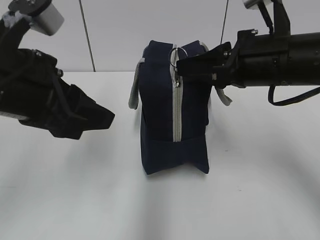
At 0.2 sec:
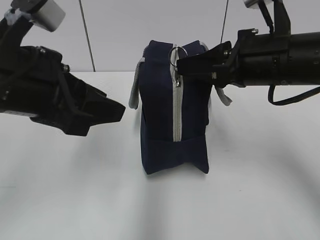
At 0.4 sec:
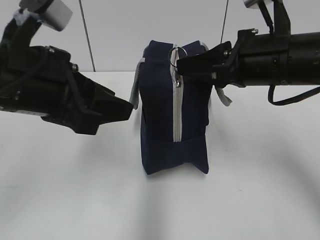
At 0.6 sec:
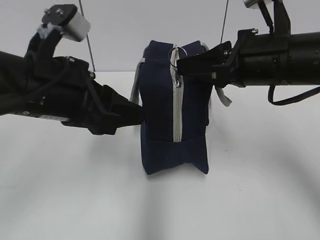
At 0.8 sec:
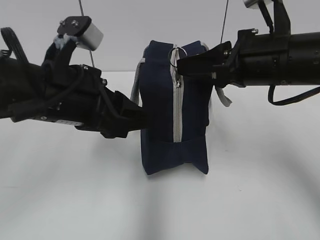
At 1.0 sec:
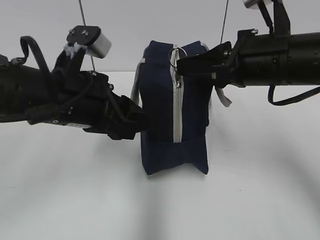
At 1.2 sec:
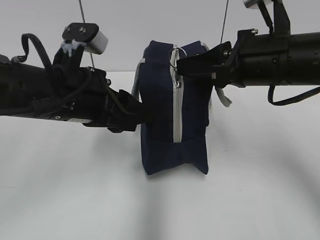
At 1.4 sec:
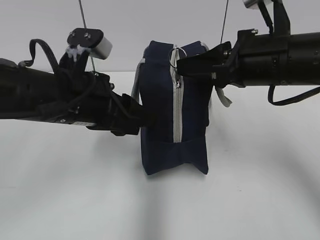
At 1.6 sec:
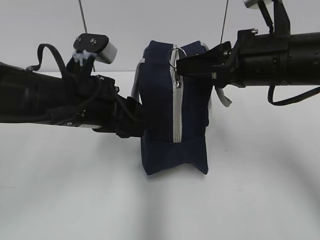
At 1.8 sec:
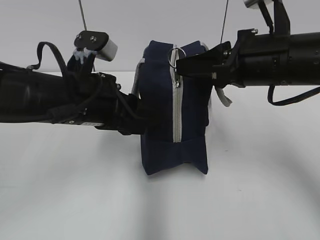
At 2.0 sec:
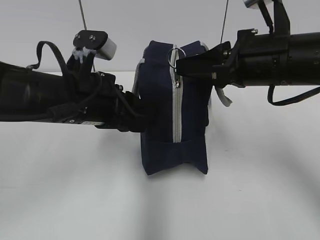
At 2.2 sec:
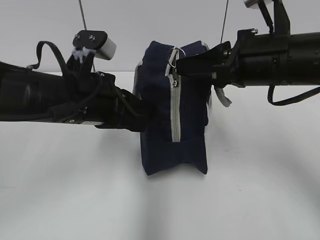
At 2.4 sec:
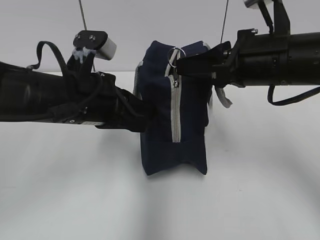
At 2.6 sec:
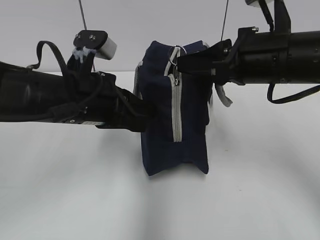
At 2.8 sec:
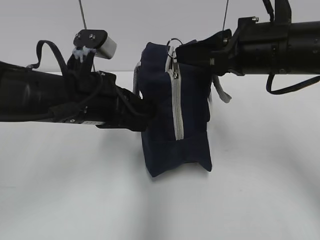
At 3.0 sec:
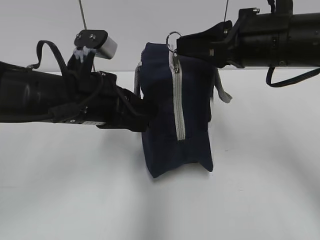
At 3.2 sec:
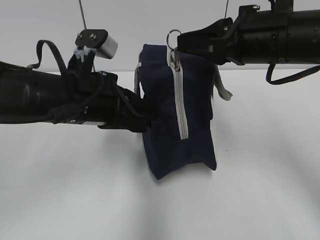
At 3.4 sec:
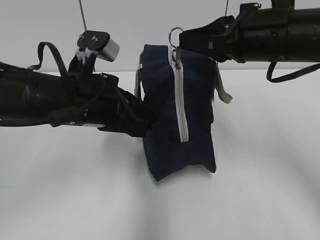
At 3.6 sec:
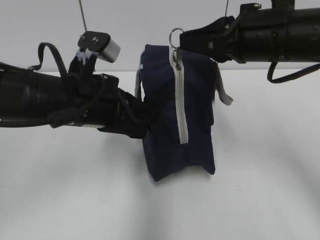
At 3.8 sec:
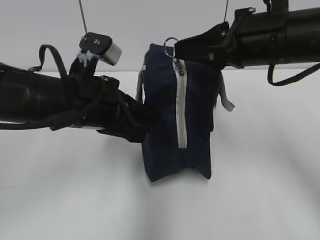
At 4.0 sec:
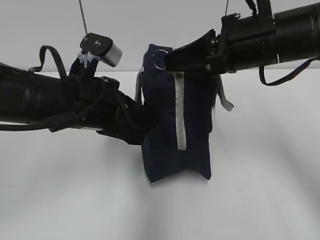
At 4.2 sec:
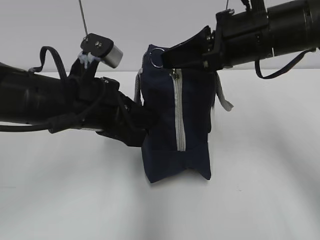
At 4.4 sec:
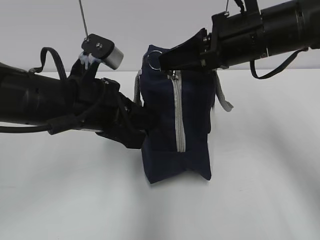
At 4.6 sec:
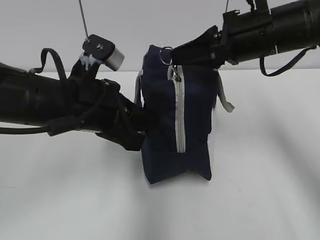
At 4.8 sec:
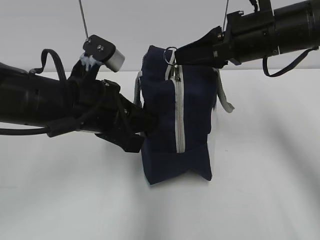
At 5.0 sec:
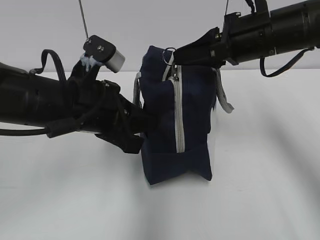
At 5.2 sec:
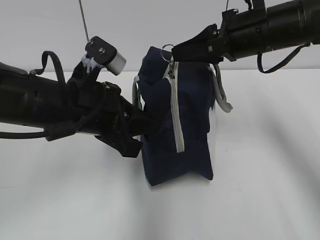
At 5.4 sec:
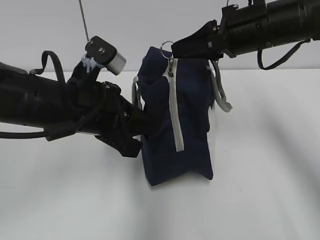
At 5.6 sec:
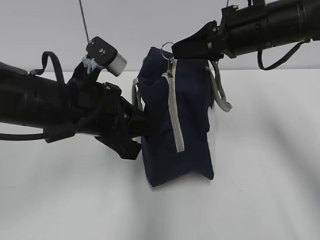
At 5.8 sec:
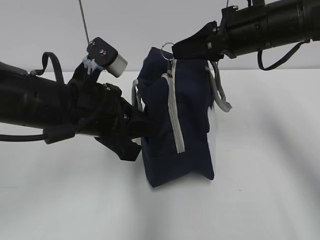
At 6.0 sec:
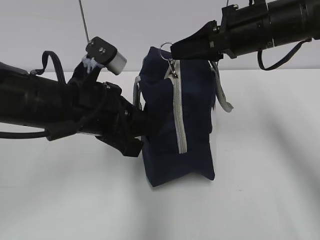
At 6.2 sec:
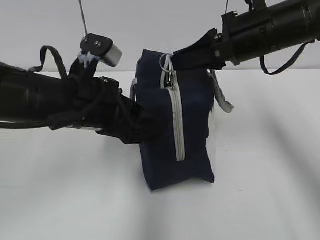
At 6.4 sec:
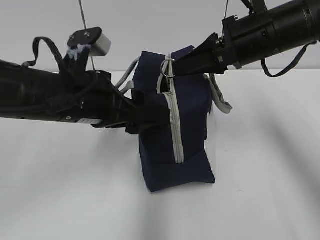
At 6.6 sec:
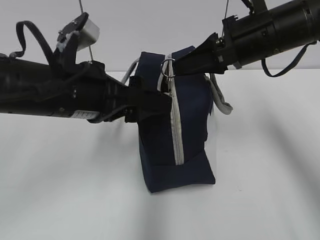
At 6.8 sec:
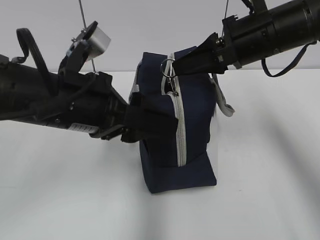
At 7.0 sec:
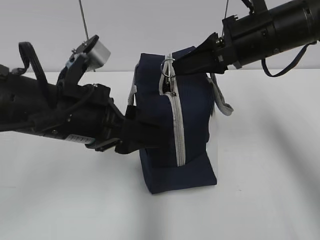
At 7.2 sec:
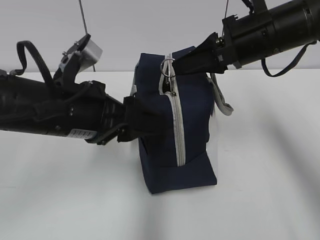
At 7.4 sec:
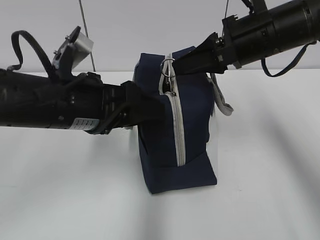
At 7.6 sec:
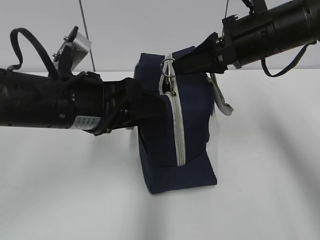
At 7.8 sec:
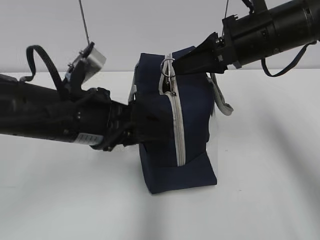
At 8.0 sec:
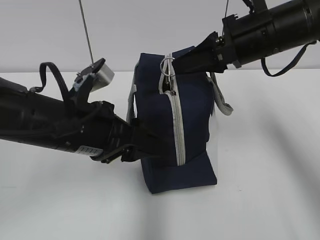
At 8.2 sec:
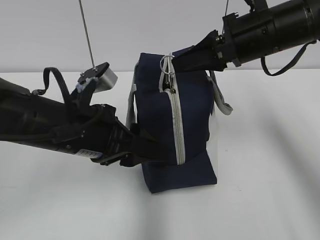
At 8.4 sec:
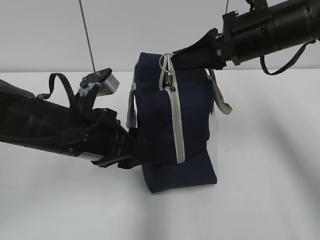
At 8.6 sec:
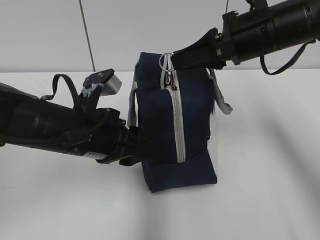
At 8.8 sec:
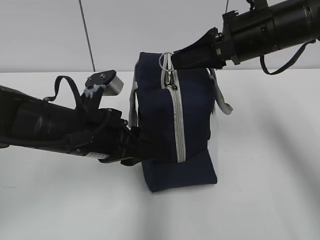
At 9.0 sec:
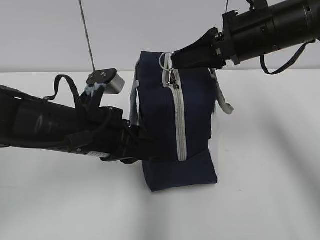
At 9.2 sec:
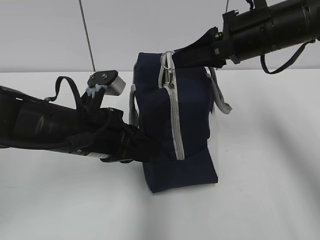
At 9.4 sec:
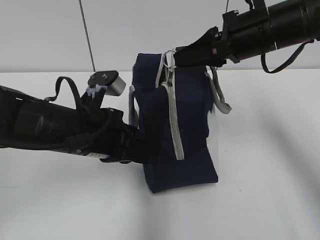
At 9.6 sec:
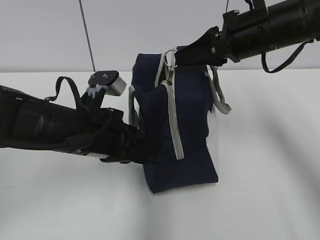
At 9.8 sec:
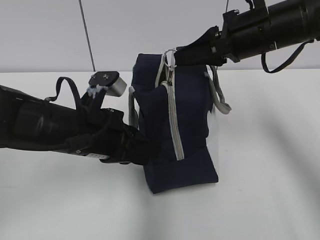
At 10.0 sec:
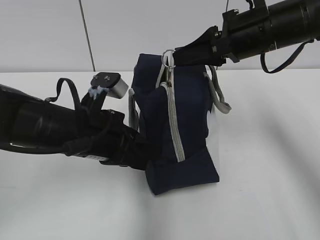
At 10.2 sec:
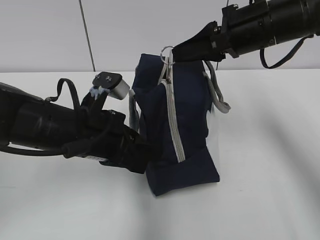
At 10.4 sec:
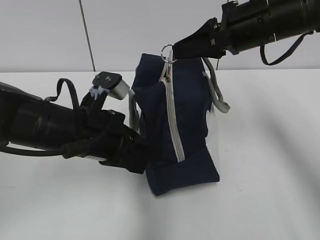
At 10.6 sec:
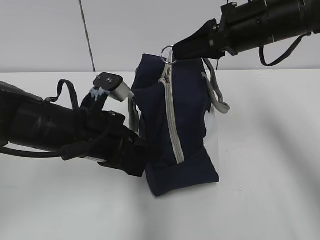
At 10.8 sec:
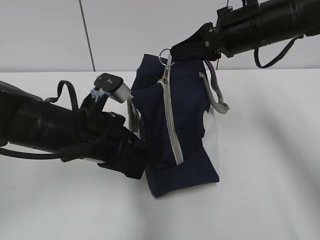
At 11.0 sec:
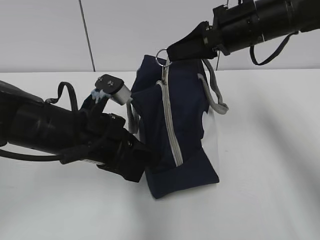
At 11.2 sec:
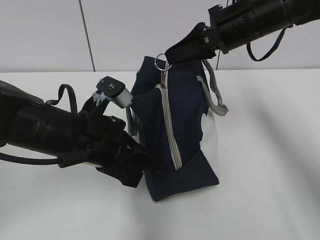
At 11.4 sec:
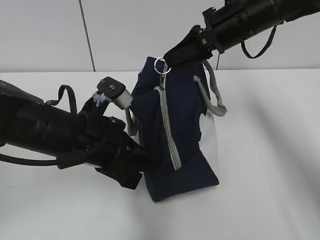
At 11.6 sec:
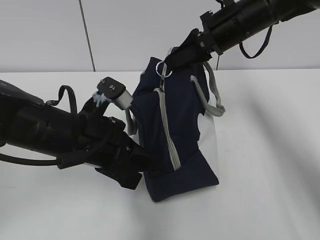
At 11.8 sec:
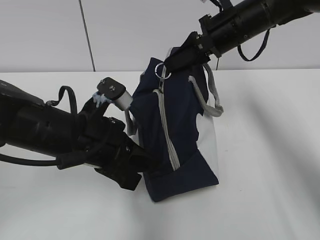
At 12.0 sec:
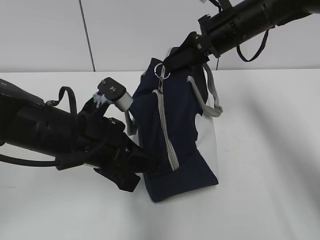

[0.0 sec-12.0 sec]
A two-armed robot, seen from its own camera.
0.0 sec to 1.6 sec: The left gripper shifts approximately 5 cm downward.
1.6 sec to 3.0 sec: The left gripper closes up.
3.0 sec to 4.4 sec: There are only small adjustments of the grippers.
4.4 sec to 6.0 sec: The grippers make only small movements.
6.0 sec to 7.6 sec: The left gripper opens up.
7.6 sec to 9.0 sec: The left gripper moves downward, about 5 cm, and closes up.
9.0 sec to 10.4 sec: The left gripper closes.
10.4 sec to 12.0 sec: The right gripper goes some 5 cm forward.

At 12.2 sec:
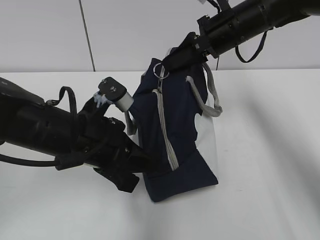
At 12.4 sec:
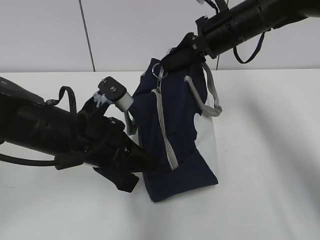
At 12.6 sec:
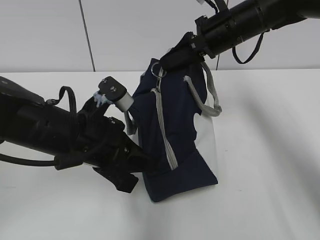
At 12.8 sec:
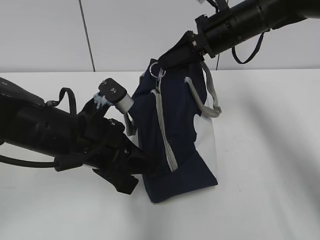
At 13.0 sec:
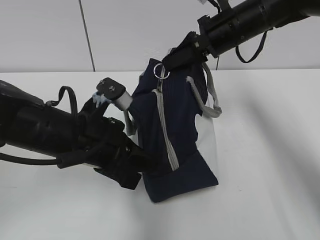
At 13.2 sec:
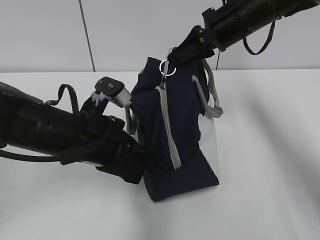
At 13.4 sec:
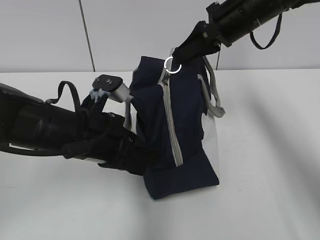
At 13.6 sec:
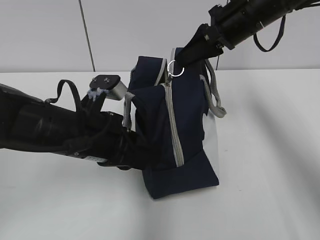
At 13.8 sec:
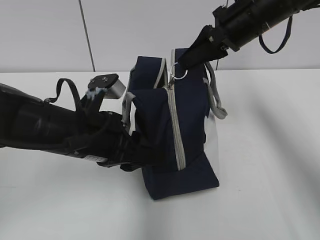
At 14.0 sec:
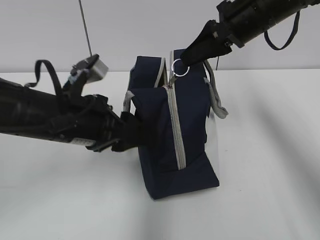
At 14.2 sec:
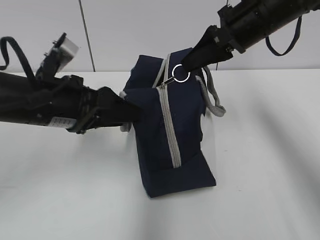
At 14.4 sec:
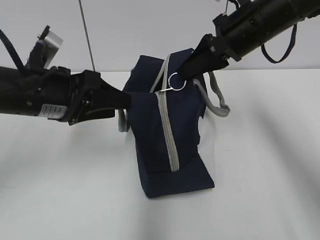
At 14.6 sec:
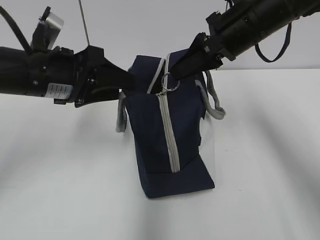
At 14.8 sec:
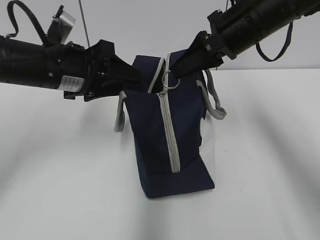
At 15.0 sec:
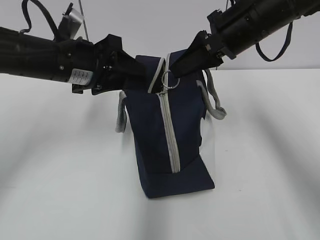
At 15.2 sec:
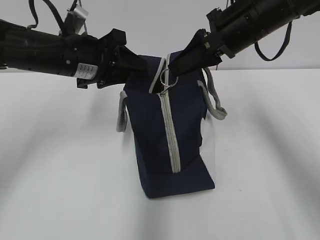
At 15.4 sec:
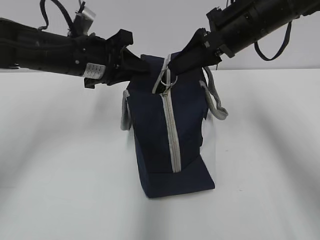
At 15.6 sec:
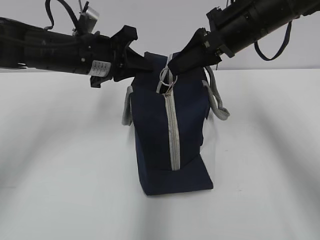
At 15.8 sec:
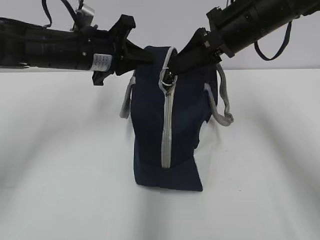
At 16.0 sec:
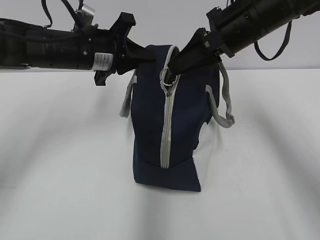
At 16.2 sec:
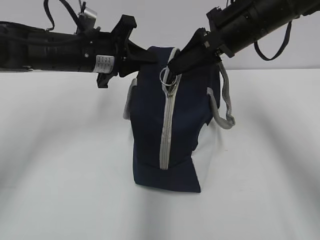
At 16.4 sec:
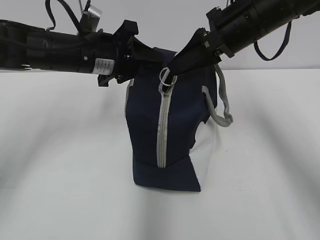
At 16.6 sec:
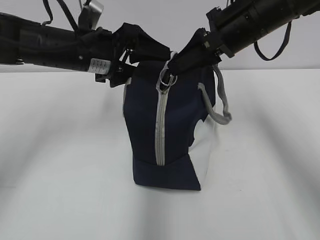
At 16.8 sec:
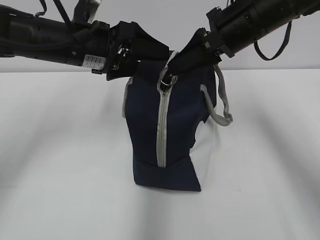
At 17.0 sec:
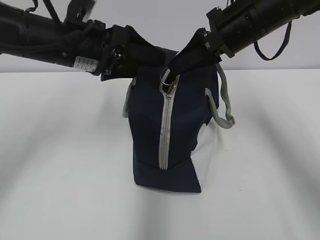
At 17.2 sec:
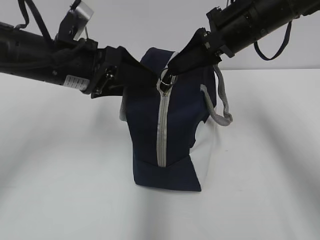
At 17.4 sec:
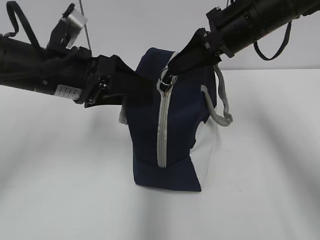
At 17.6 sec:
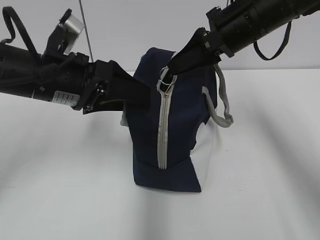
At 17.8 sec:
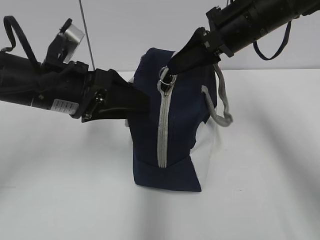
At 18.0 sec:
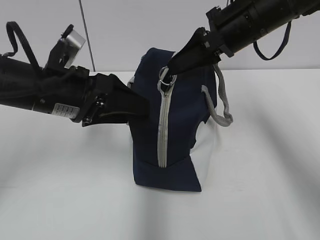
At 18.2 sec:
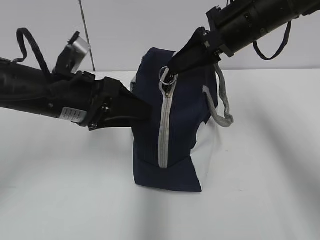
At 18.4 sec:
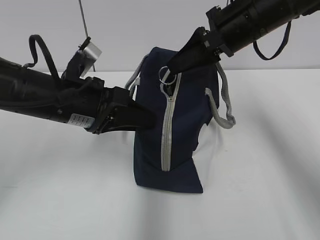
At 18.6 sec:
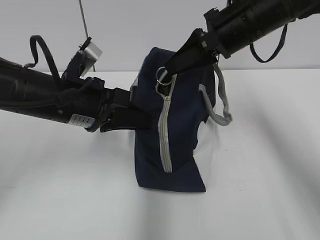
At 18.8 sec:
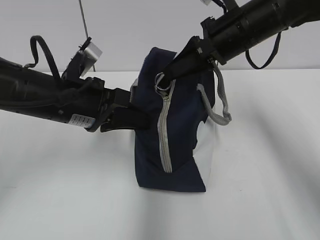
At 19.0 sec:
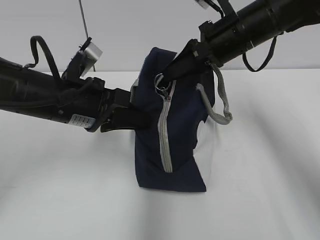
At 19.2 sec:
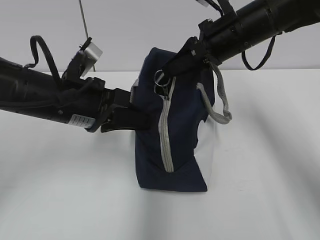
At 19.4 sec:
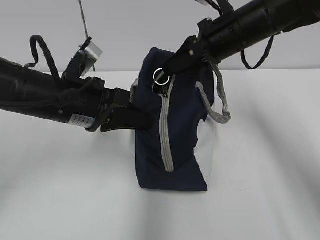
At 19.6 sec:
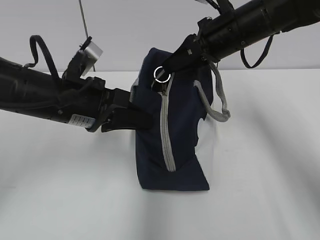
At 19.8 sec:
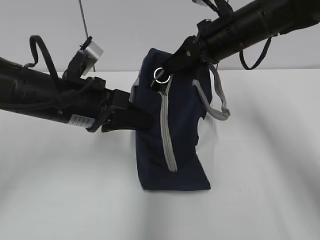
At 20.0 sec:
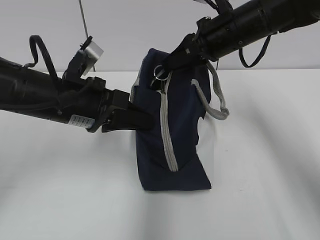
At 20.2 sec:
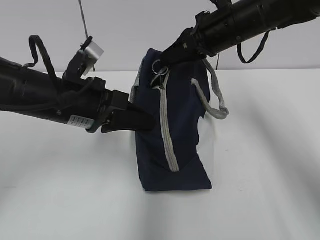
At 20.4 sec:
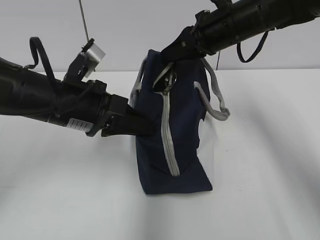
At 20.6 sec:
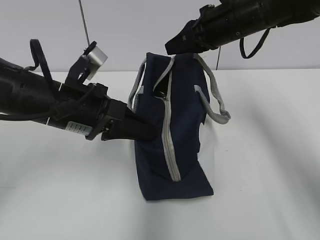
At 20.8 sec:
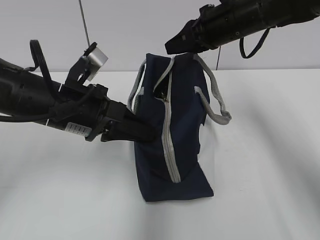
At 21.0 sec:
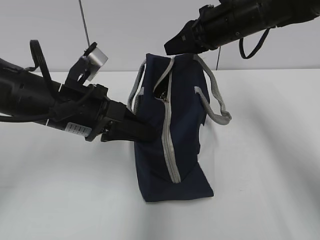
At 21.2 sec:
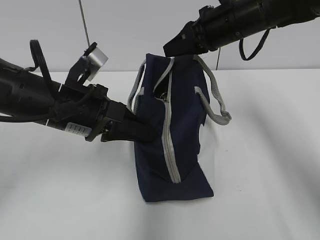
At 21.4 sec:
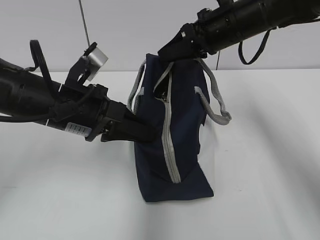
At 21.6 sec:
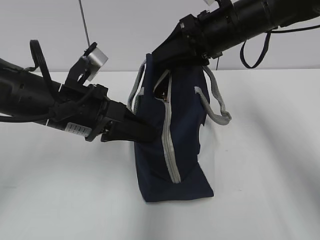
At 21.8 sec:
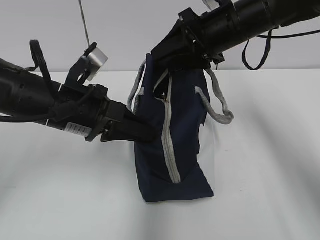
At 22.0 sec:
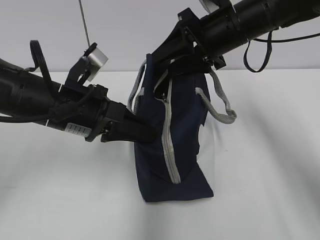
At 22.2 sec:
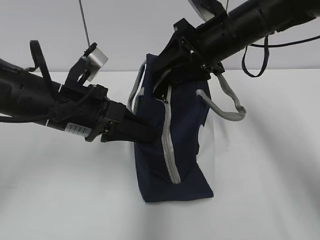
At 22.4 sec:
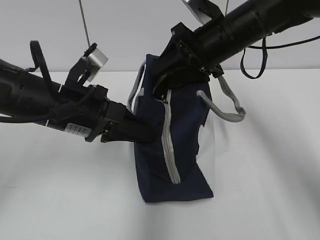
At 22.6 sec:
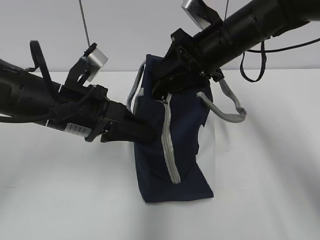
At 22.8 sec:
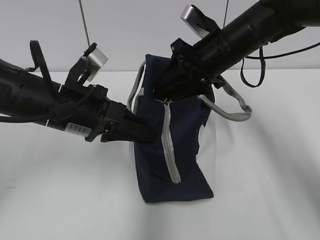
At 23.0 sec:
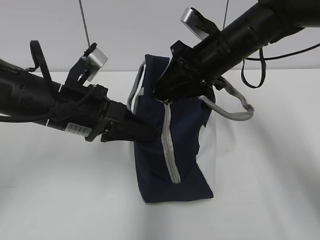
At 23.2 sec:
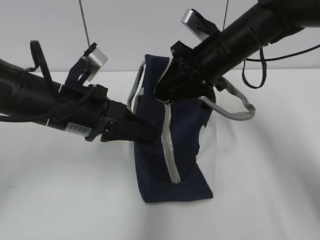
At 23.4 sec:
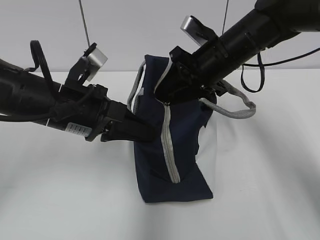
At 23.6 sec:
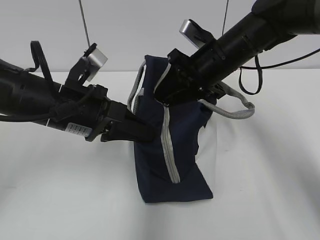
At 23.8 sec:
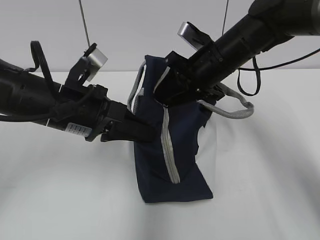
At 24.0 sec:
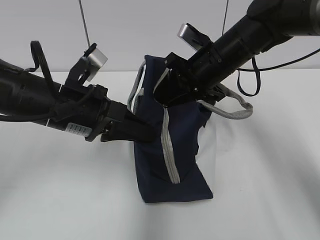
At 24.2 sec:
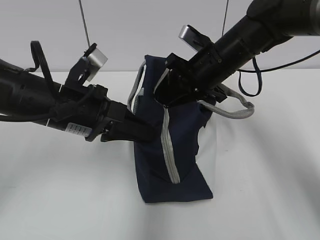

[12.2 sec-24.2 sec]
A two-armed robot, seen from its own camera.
12.2 sec to 13.8 sec: The left gripper opens its fingers.
13.8 sec to 15.2 sec: The left gripper shifts some 10 cm forward and upward.
15.2 sec to 16.6 sec: The left gripper closes, then opens again.
16.6 sec to 18.2 sec: The left gripper shifts approximately 10 cm backward.
18.2 sec to 19.8 sec: The left gripper closes up.
19.8 sec to 21.2 sec: The grippers make only small movements.
21.2 sec to 22.6 sec: The right gripper opens up.
22.6 sec to 24.2 sec: The grippers move only a little.
